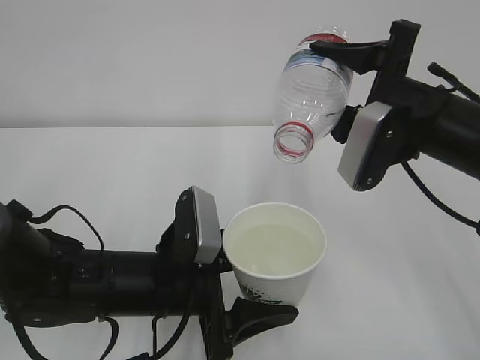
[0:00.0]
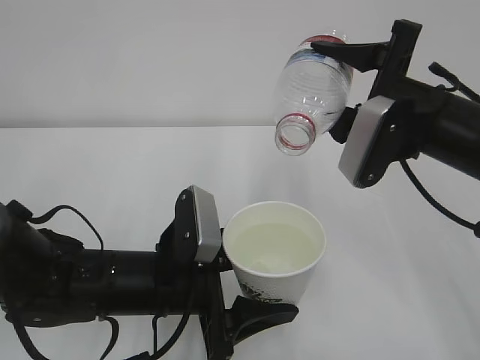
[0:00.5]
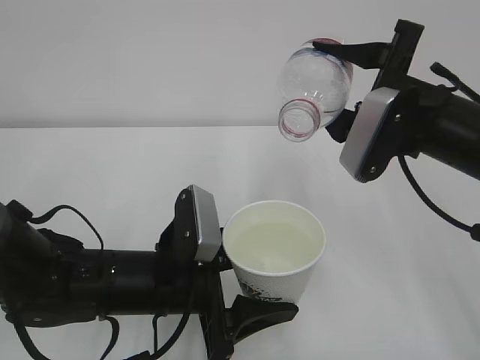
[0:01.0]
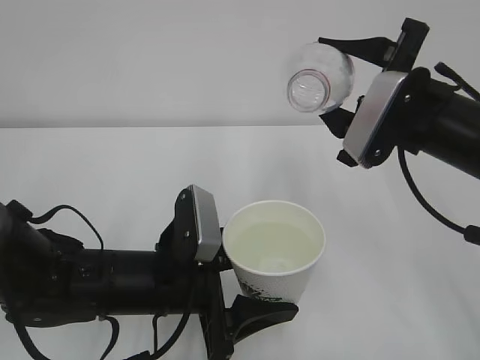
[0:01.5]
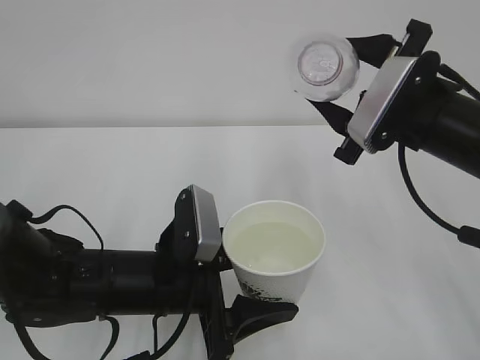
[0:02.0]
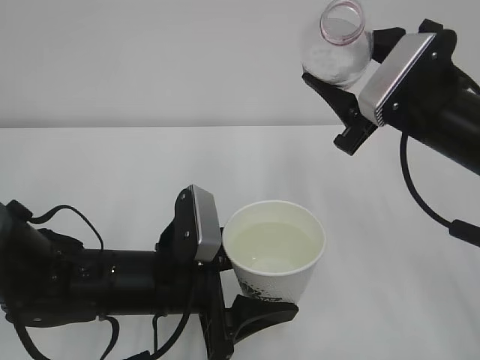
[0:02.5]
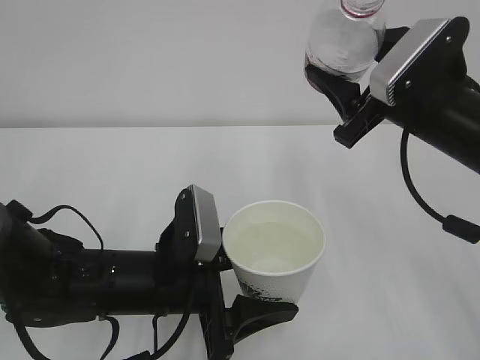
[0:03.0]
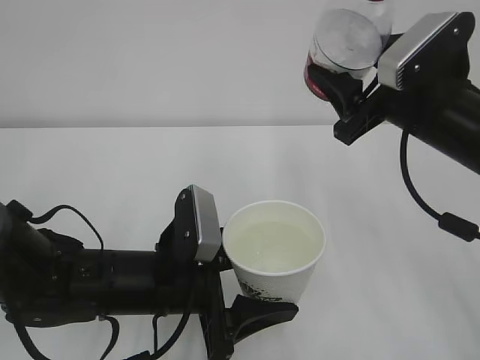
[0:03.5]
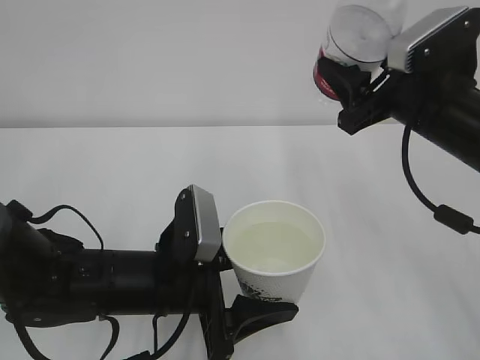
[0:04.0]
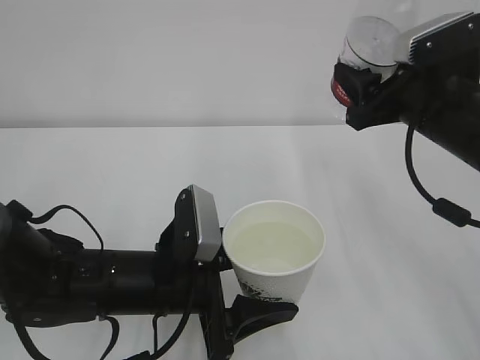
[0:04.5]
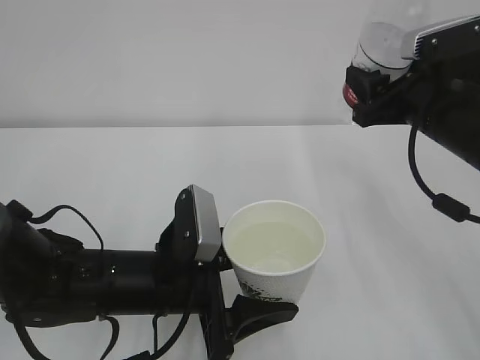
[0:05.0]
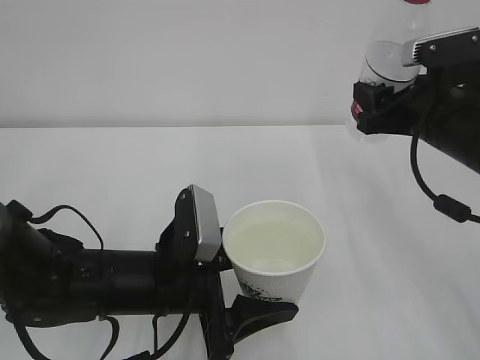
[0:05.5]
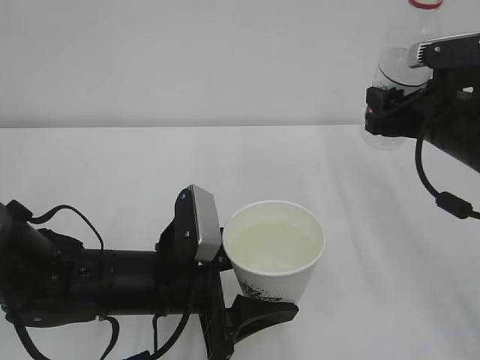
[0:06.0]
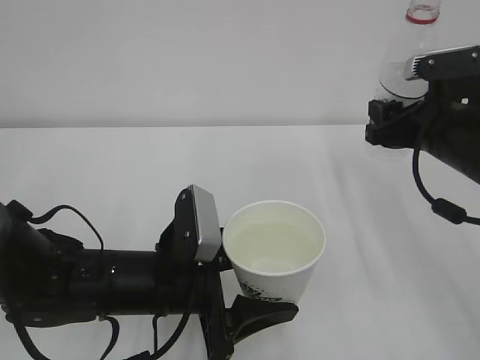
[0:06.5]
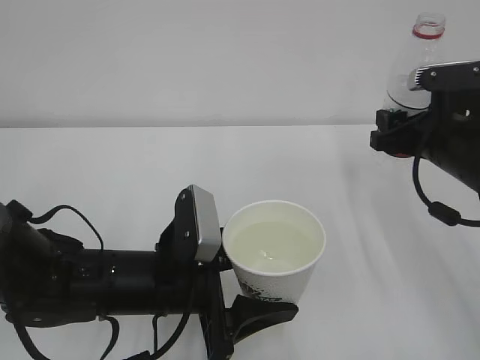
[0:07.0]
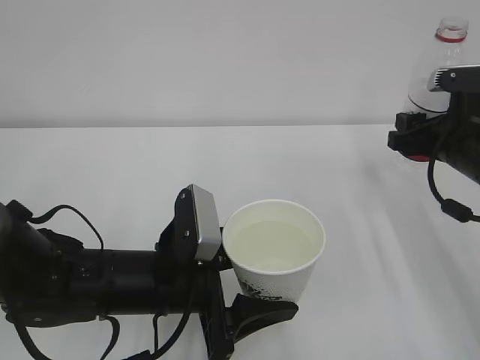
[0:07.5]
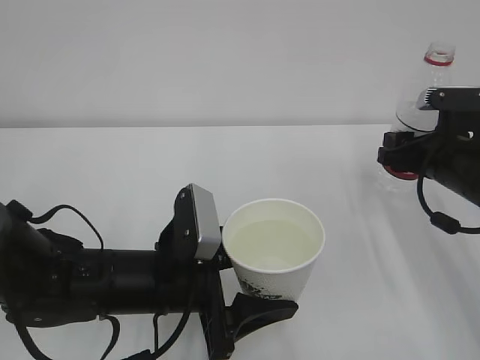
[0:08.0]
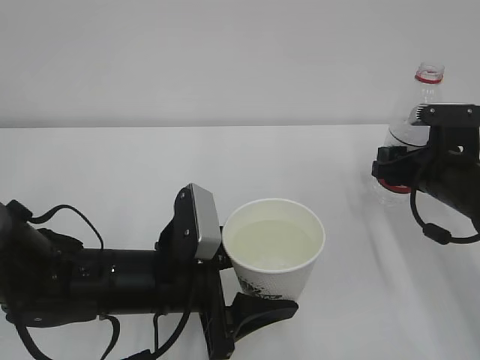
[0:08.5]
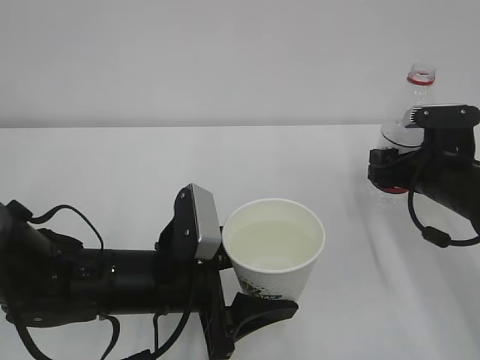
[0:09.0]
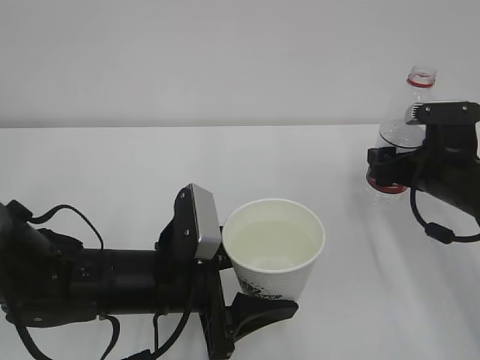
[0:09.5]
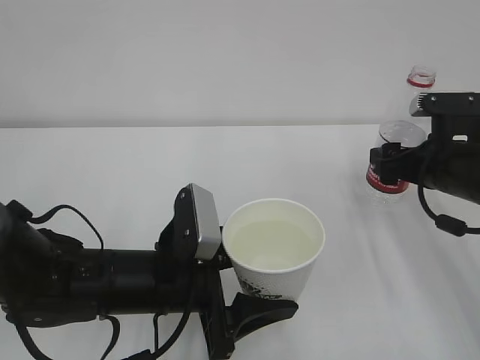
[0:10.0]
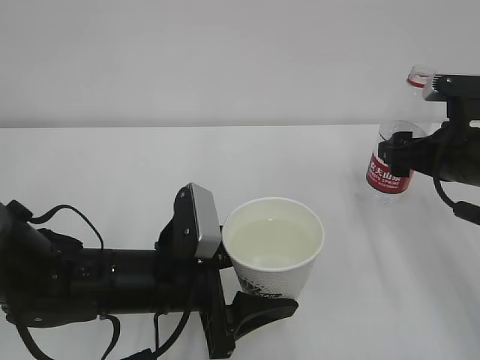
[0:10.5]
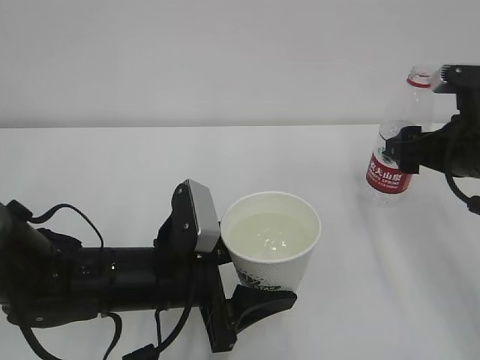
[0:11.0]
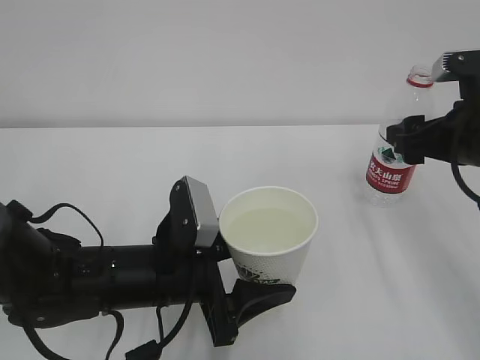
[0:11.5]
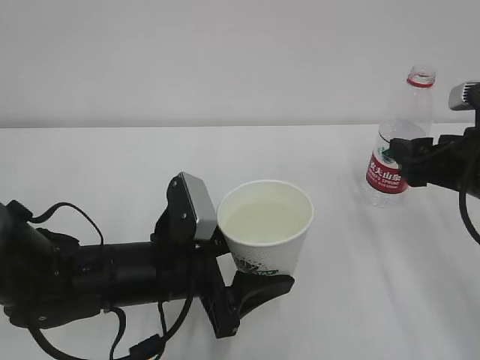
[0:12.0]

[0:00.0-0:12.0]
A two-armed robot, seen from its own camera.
0:06.0 to 0:08.0: The right gripper is displaced downward by some 5 cm.
0:08.0 to 0:10.0: The right gripper opens up.
0:10.0 to 0:12.0: The right gripper heads backward, covering some 5 cm.

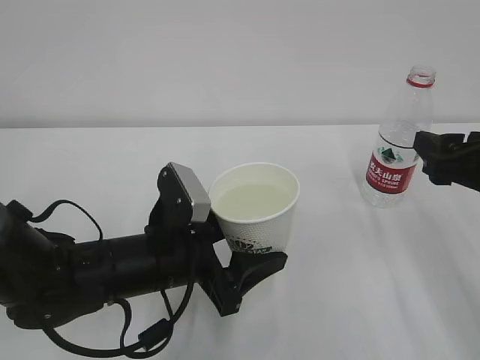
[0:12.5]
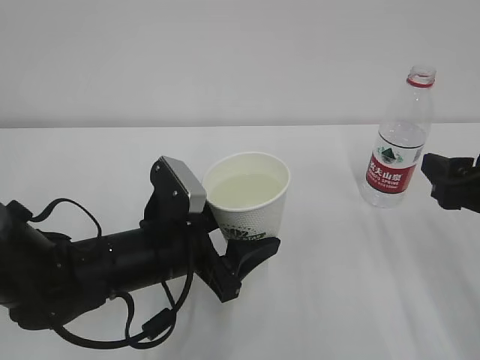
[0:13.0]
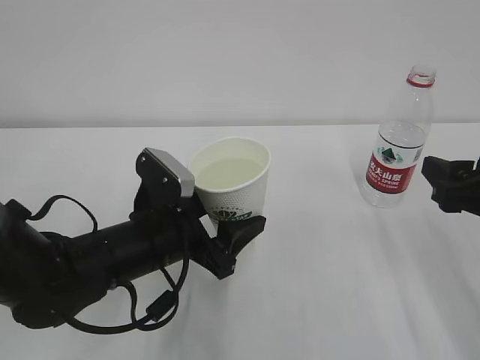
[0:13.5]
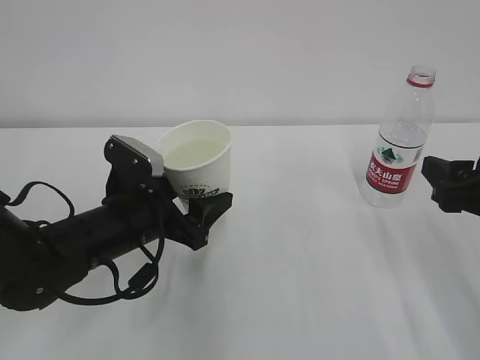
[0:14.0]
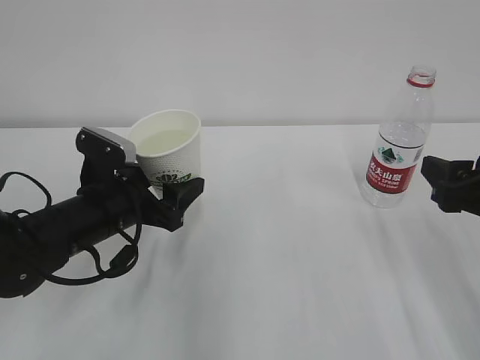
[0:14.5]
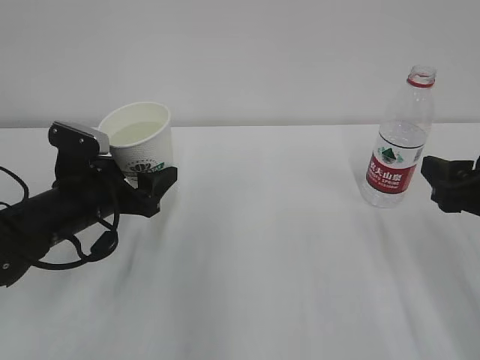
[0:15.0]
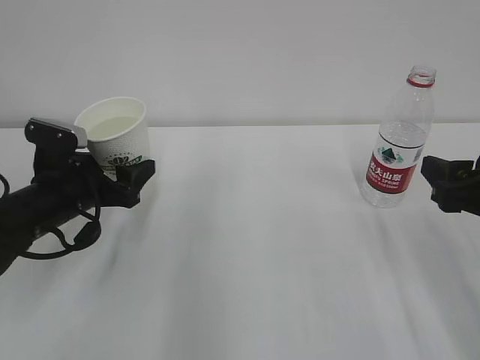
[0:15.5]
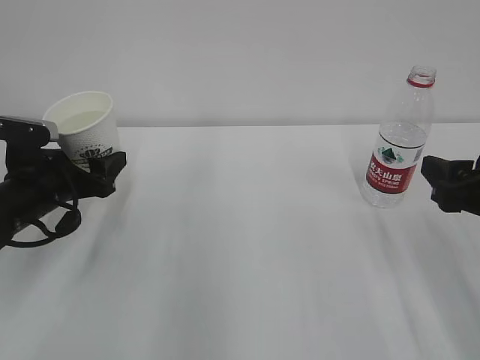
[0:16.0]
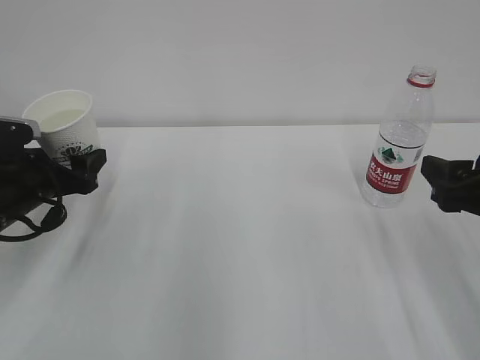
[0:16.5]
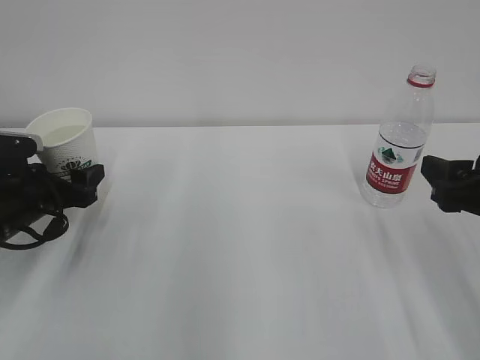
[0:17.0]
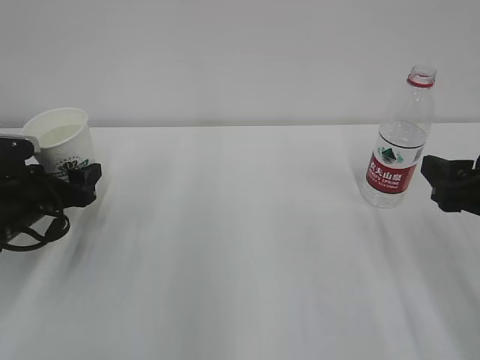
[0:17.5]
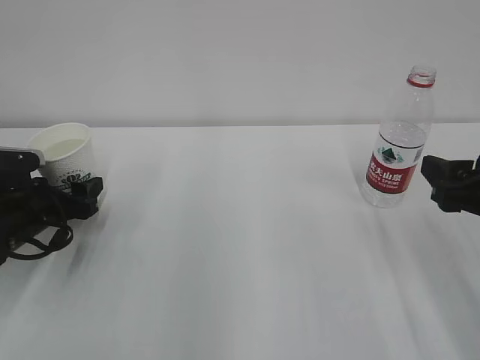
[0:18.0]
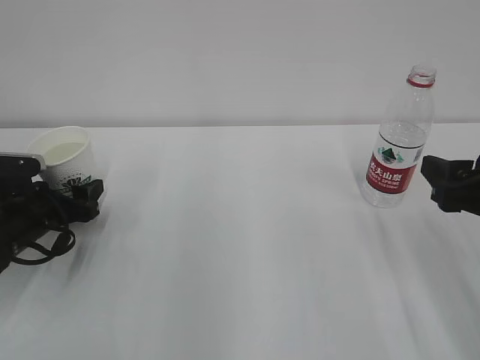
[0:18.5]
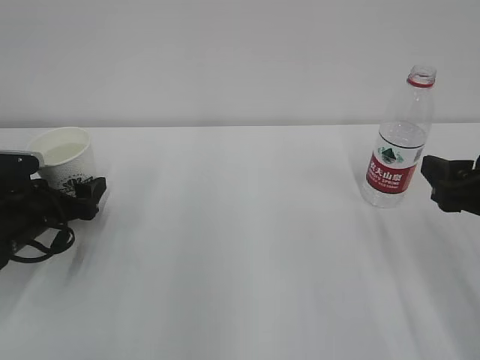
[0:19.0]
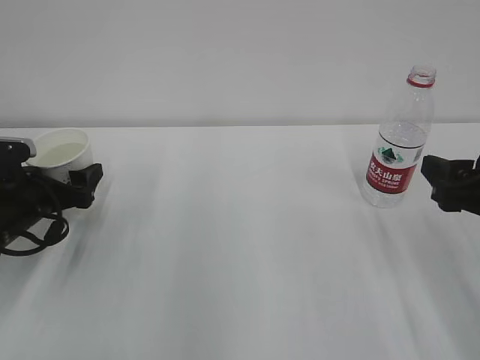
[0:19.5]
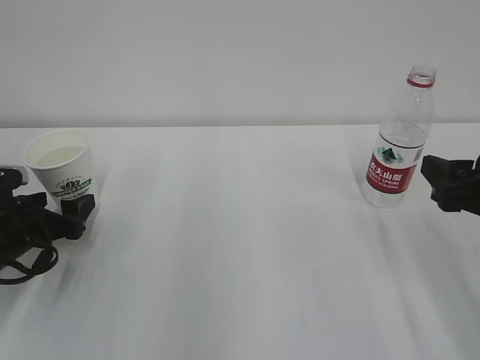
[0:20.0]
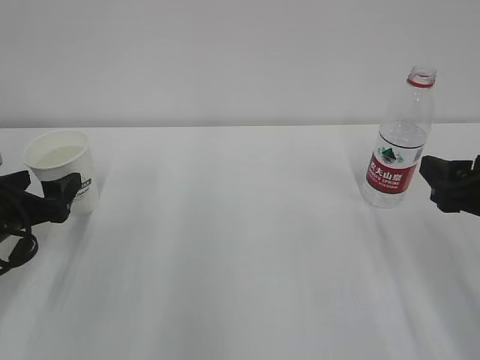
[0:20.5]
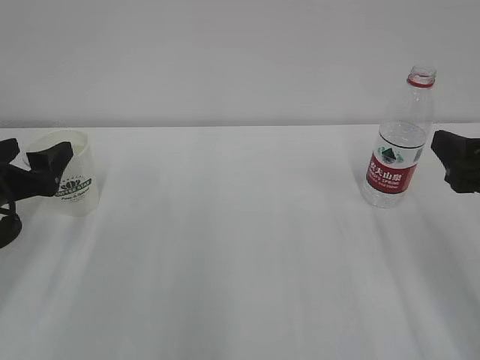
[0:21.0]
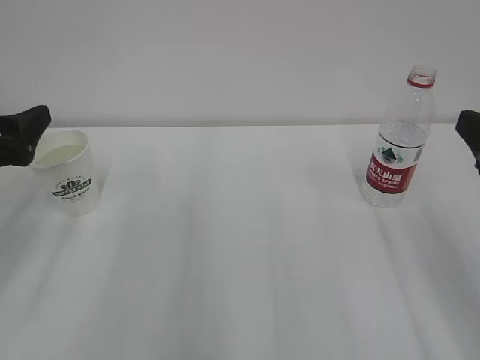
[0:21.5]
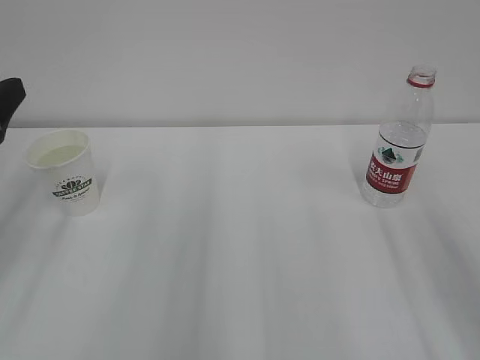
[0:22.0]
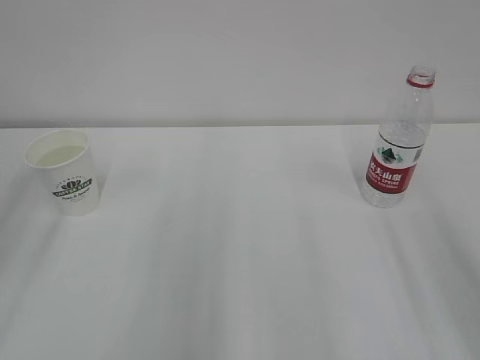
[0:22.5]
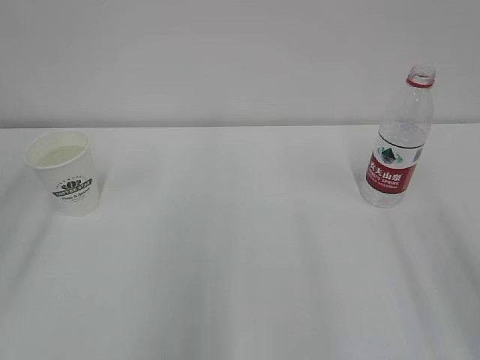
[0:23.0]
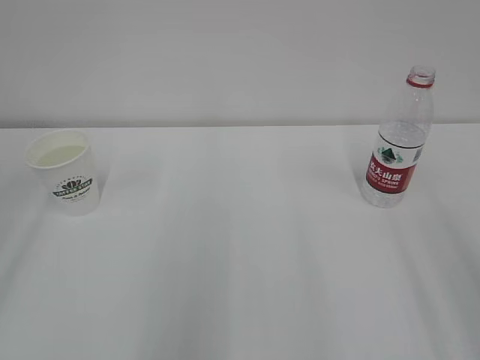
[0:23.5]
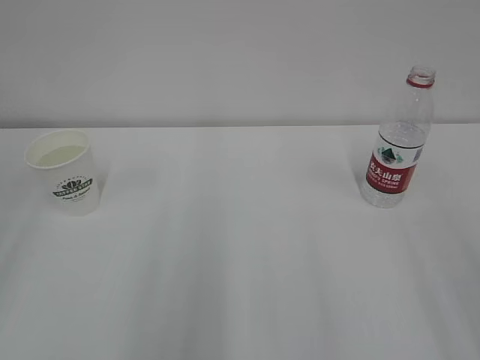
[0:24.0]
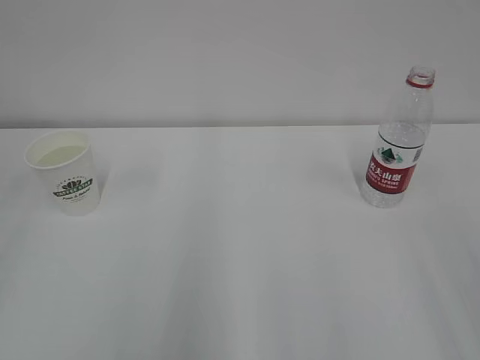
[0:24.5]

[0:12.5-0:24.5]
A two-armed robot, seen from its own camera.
0:12.5 to 0:14.5: The left gripper moves to the left and forward, about 10 cm.
0:14.5 to 0:16.5: The left gripper travels to the left by about 10 cm.
0:16.5 to 0:18.5: The left gripper travels downward by roughly 5 cm.
0:18.5 to 0:20.5: The left gripper goes approximately 5 cm upward and backward, and opens up.
0:20.5 to 0:22.5: The two grippers go approximately 15 cm upward and backward.
